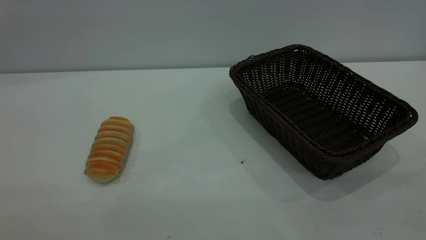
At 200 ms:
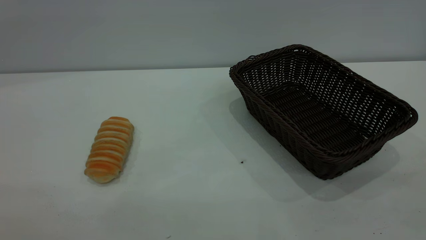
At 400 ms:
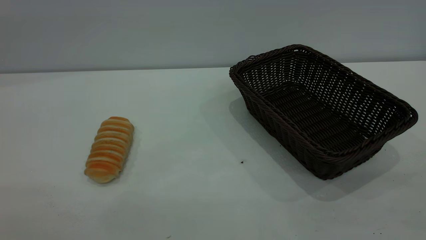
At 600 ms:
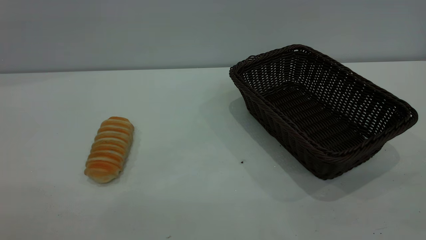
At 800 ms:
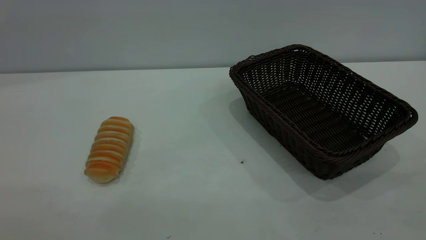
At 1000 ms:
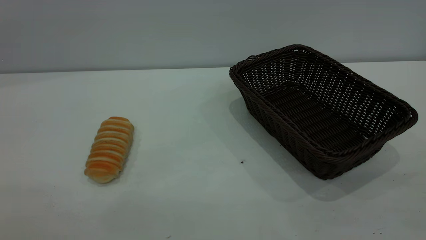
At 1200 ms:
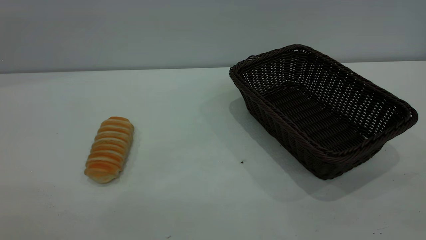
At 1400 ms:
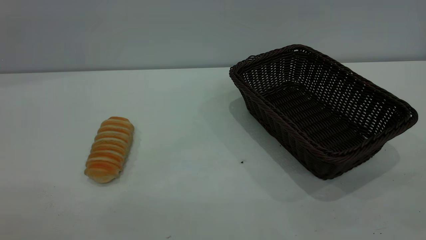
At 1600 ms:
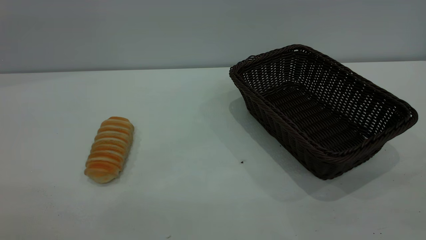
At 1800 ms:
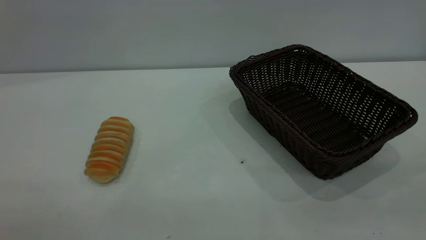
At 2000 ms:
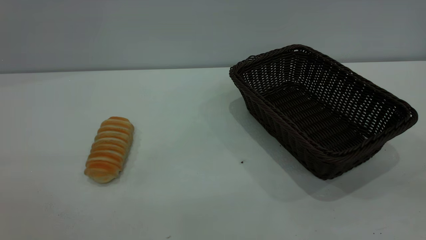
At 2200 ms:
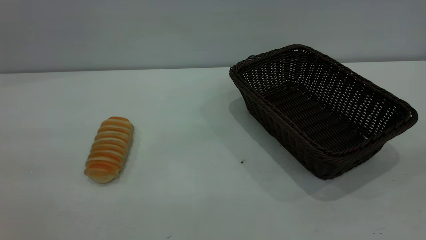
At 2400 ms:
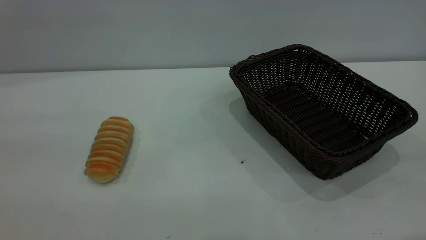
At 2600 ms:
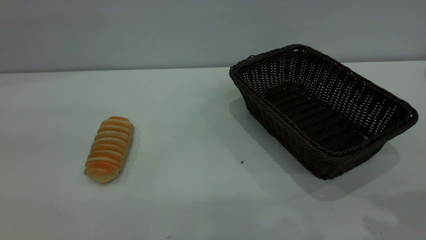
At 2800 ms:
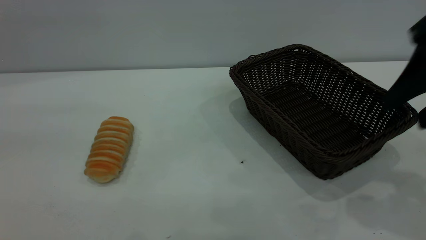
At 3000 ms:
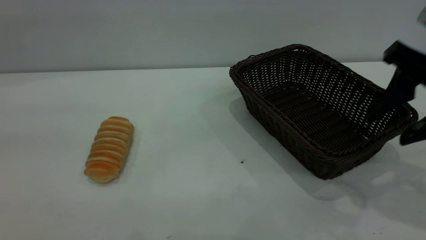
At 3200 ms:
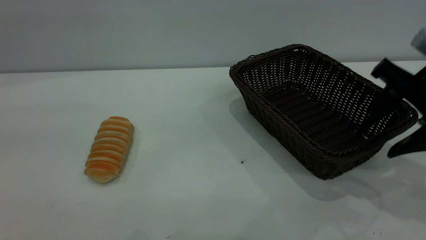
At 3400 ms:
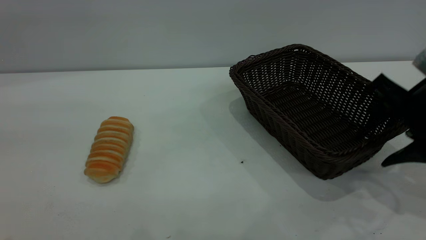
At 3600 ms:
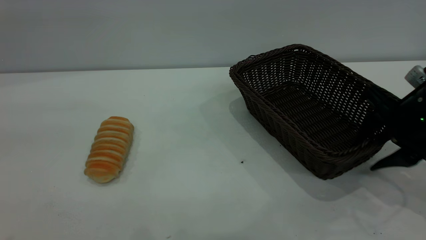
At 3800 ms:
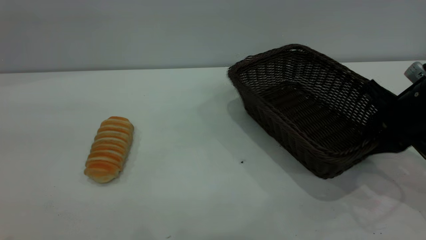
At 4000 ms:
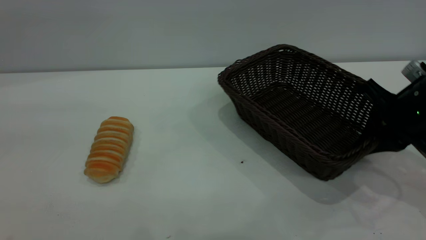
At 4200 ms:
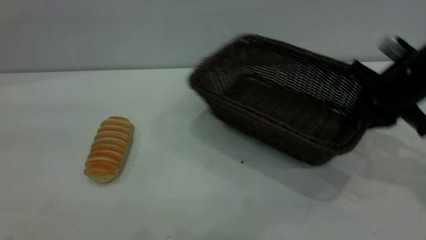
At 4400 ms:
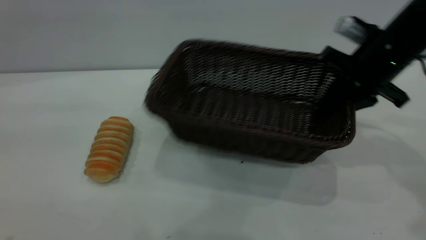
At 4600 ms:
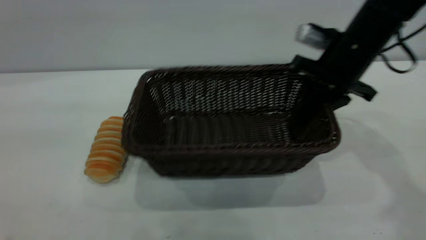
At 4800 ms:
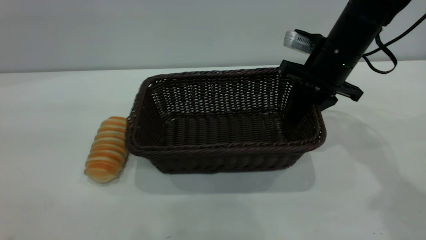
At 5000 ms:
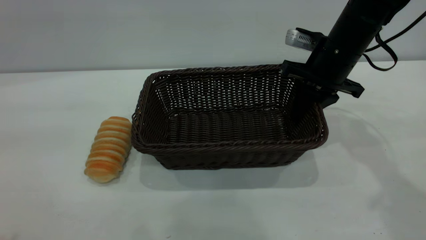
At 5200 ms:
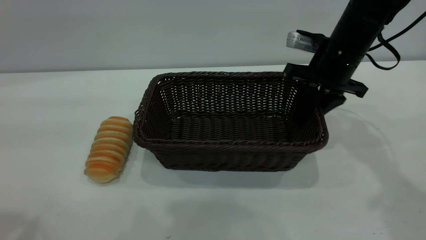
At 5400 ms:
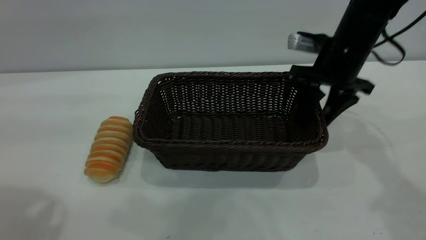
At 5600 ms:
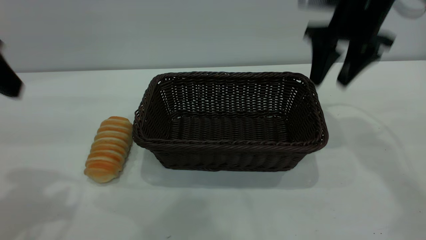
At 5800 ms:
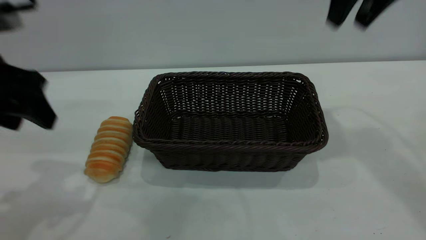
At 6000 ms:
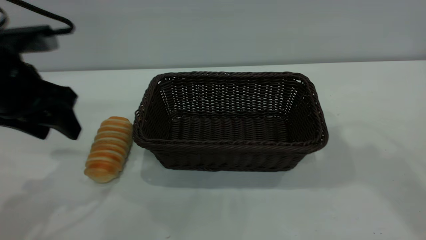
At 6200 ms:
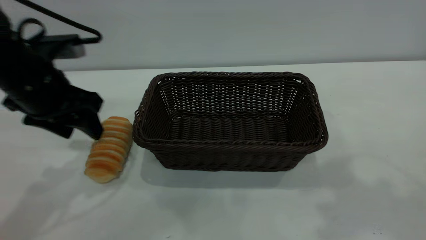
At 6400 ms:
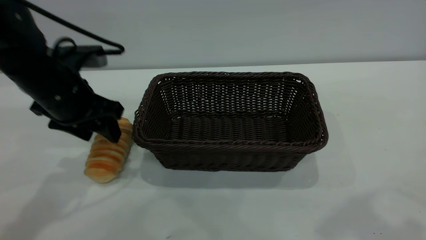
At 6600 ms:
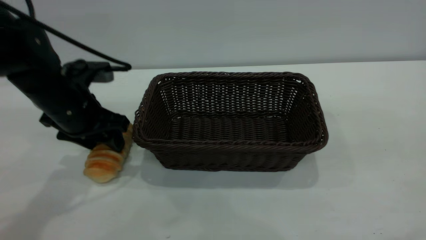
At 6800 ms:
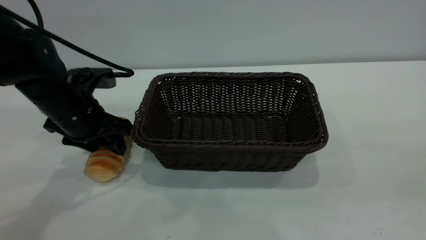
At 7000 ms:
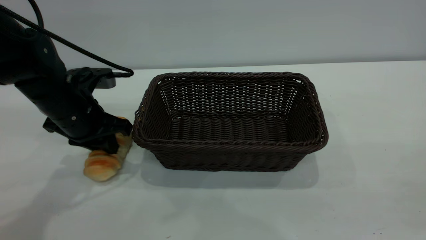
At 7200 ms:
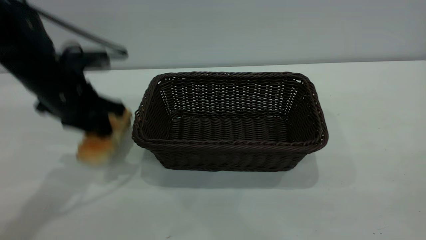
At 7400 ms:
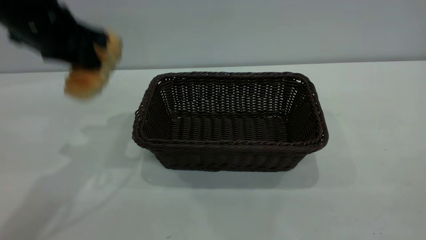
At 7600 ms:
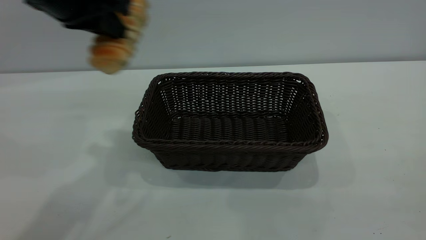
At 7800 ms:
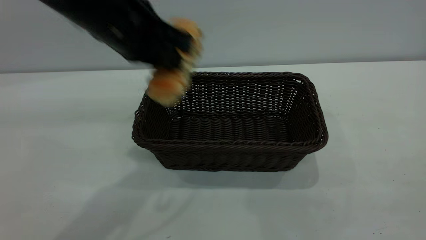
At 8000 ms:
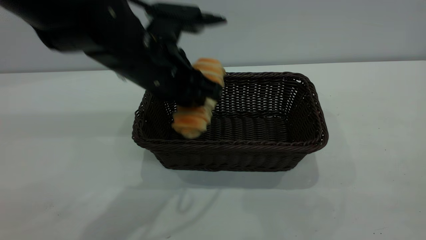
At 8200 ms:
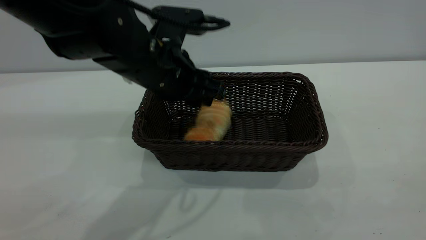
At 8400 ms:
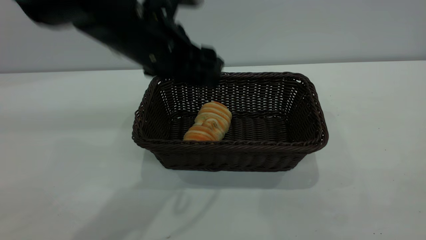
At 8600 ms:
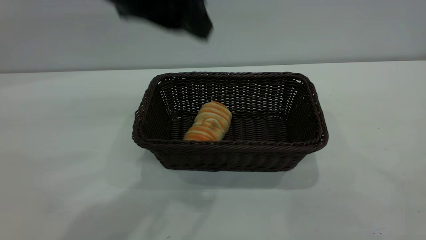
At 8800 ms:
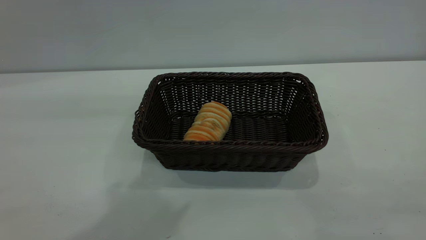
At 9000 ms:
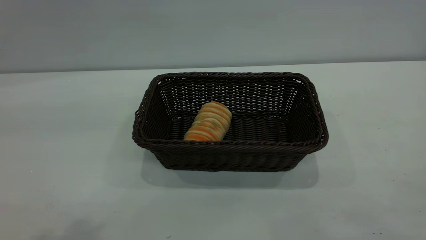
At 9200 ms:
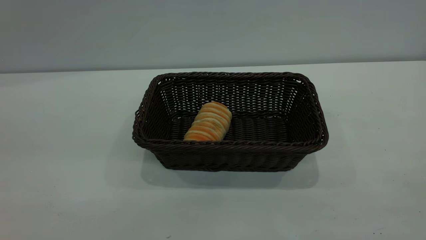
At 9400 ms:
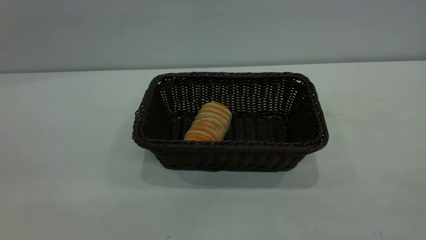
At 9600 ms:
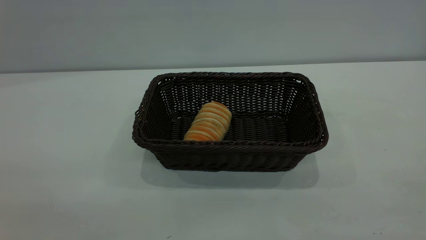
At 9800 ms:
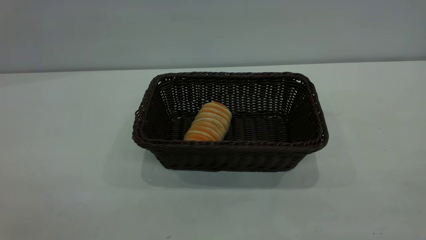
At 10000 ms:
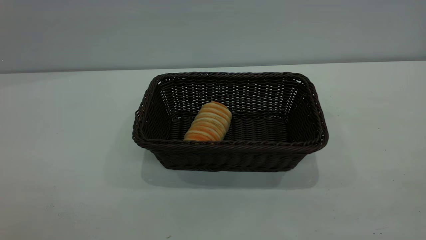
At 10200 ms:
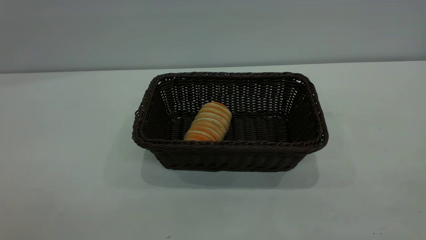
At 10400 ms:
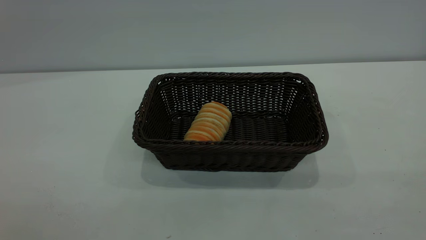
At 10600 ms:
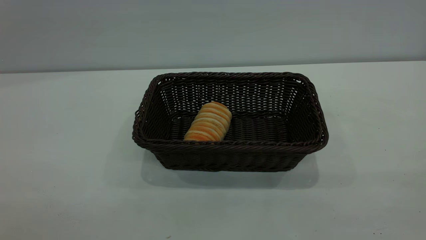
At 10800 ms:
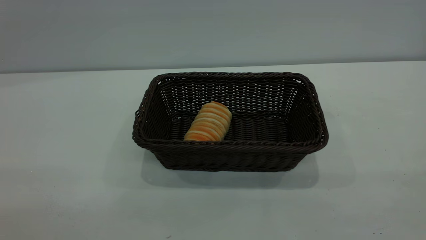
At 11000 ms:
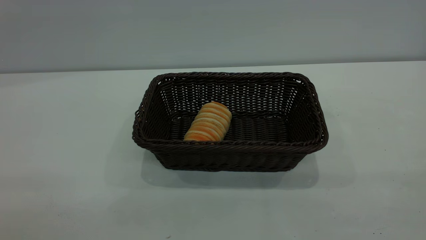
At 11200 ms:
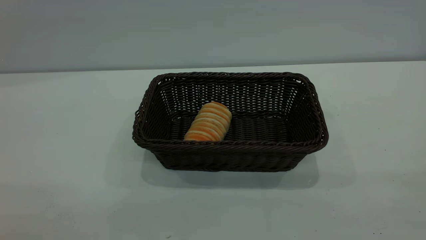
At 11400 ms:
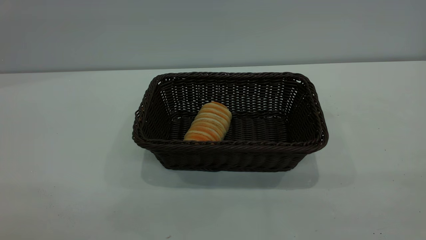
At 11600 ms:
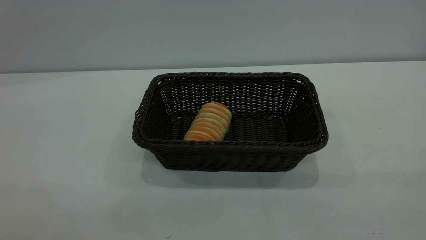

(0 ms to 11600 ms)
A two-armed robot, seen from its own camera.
Task of the whole recording: One hand grasps the black basket and places it in the middle of the table, while the other hand picks up the long bread and puts it into the black basket.
Step, 0 ms - 5600 ms: Move the basket to the center of view.
Step, 7400 ms - 8400 ms: place the bread into the basket.
0 ms - 1400 ms: Neither gripper changes place.
1400 ms - 2800 ms: The right gripper travels forward by about 25 cm.
2800 ms - 4400 ms: The right gripper heads forward and downward, covering some 15 cm, and closes.
4400 ms - 5800 ms: The left gripper goes some 20 cm downward and forward. The right gripper heads upward, covering approximately 20 cm, and opens its fingers.
5800 ms - 7200 ms: The right gripper shifts about 35 cm backward, while the left gripper is displaced forward by roughly 10 cm, and closes its fingers.
7200 ms - 8800 ms: The left gripper moves up and down over about 25 cm, changing direction 2 times, and opens up.
